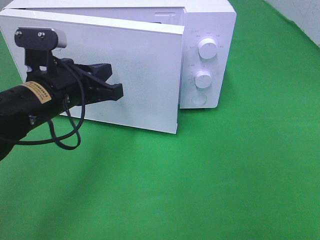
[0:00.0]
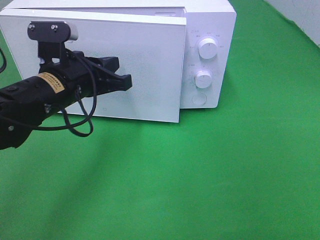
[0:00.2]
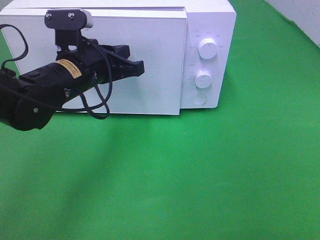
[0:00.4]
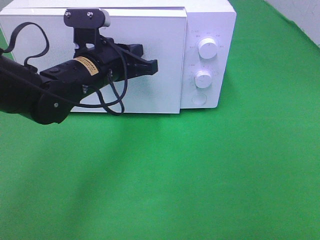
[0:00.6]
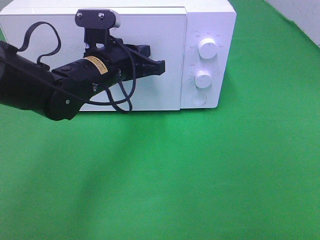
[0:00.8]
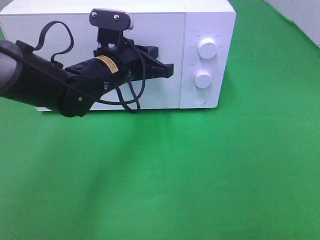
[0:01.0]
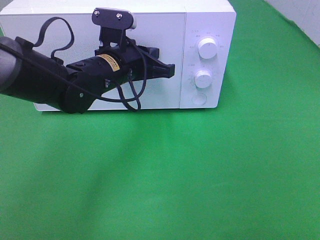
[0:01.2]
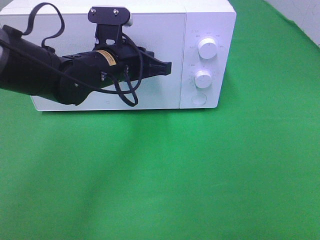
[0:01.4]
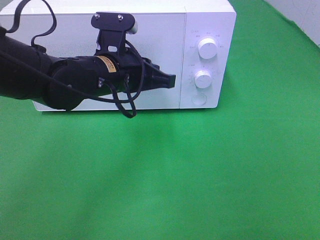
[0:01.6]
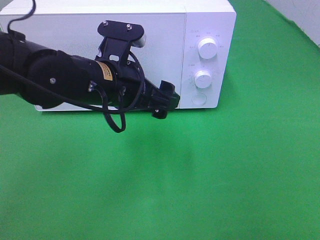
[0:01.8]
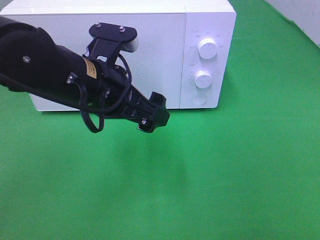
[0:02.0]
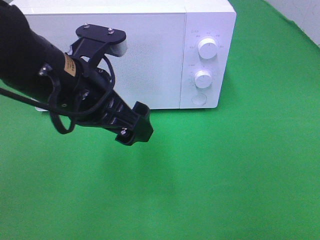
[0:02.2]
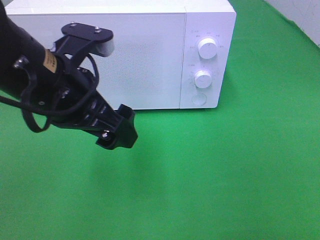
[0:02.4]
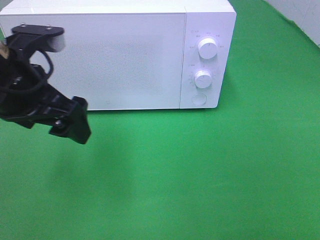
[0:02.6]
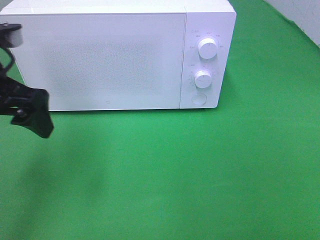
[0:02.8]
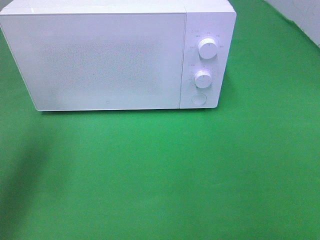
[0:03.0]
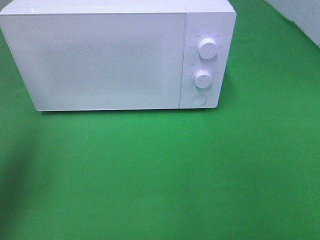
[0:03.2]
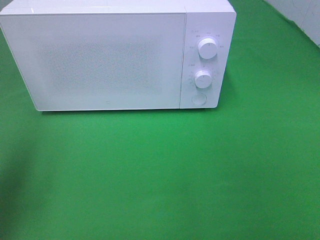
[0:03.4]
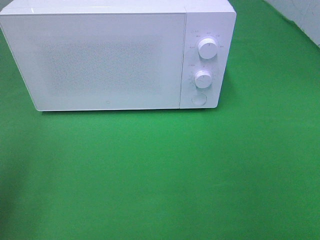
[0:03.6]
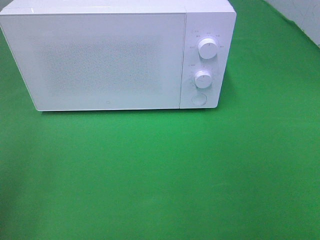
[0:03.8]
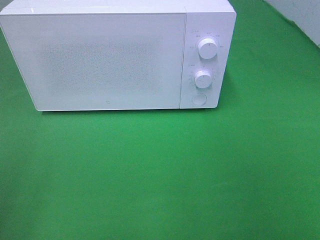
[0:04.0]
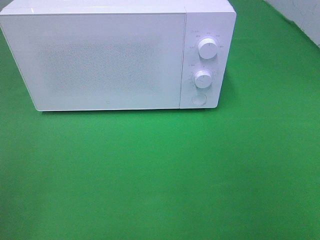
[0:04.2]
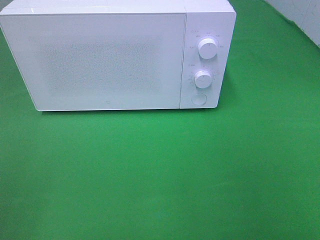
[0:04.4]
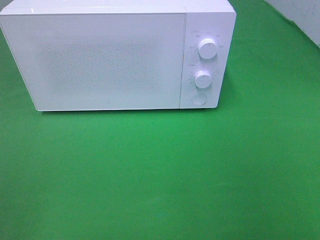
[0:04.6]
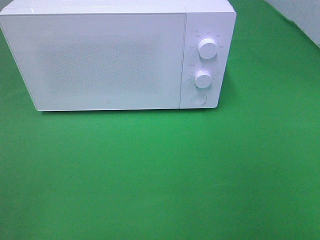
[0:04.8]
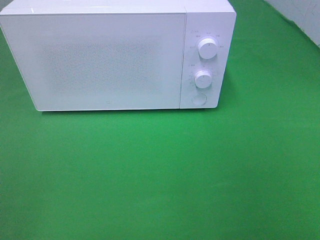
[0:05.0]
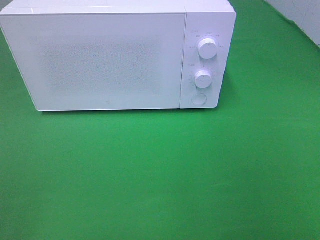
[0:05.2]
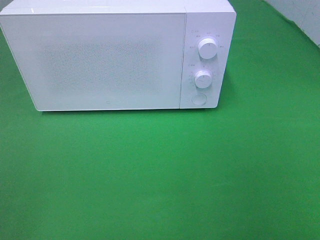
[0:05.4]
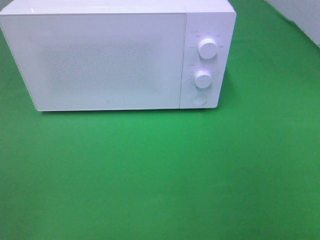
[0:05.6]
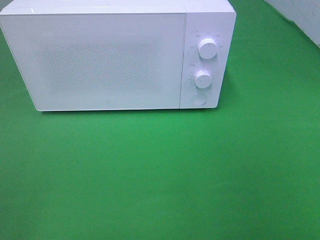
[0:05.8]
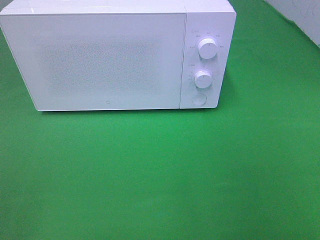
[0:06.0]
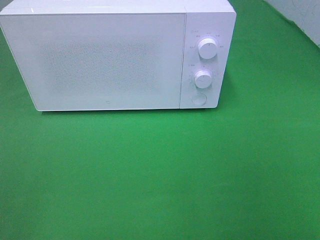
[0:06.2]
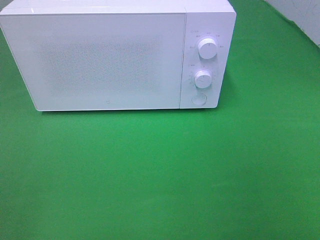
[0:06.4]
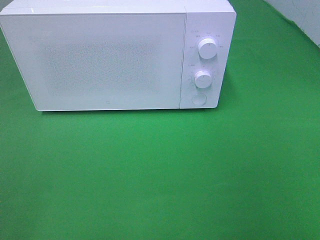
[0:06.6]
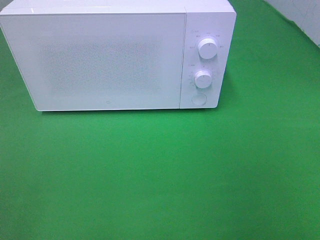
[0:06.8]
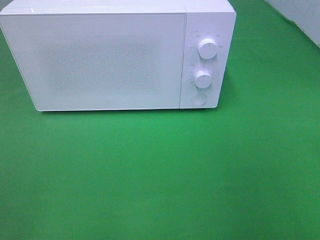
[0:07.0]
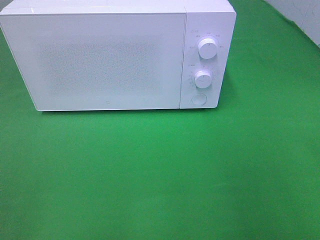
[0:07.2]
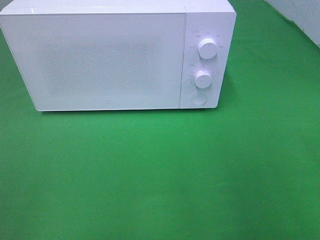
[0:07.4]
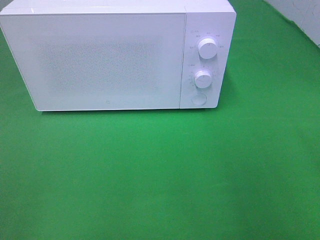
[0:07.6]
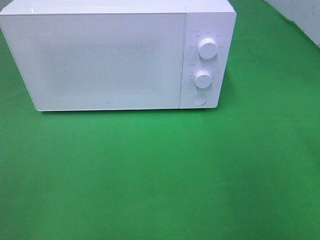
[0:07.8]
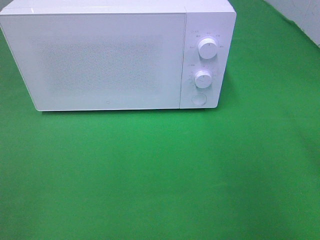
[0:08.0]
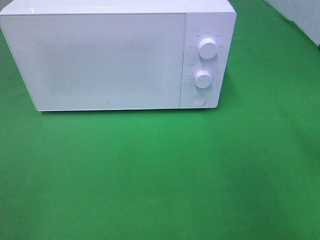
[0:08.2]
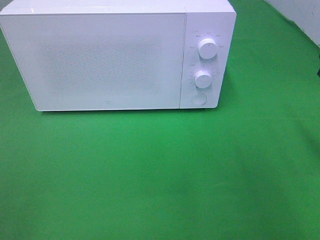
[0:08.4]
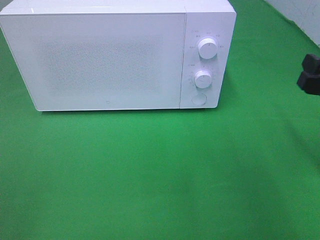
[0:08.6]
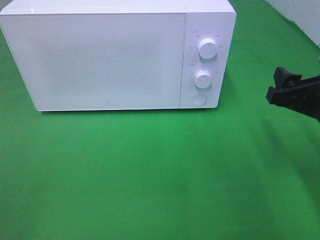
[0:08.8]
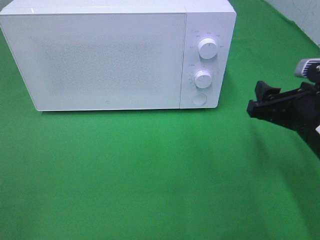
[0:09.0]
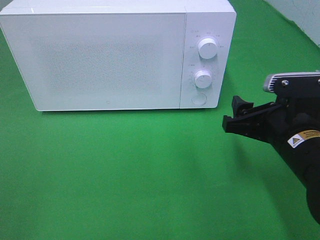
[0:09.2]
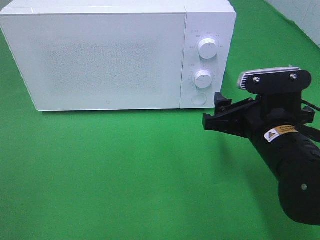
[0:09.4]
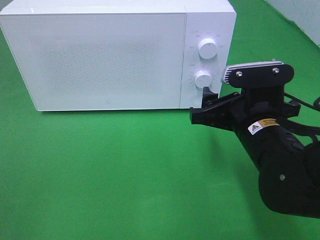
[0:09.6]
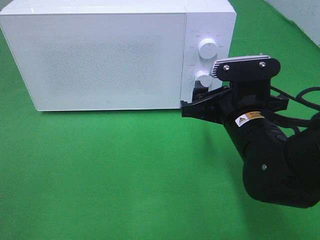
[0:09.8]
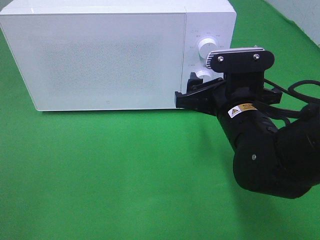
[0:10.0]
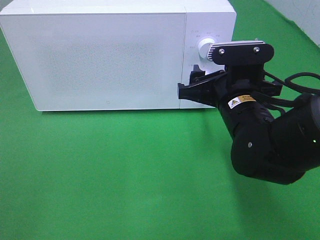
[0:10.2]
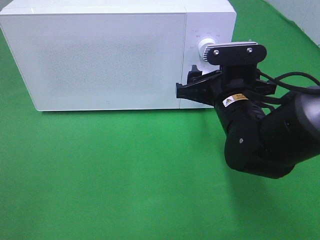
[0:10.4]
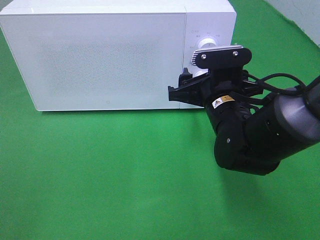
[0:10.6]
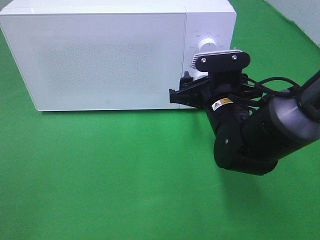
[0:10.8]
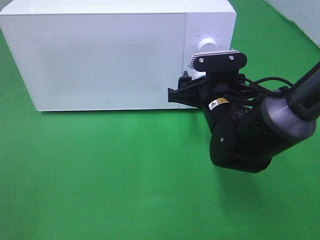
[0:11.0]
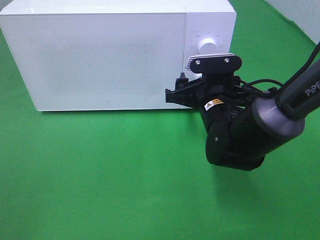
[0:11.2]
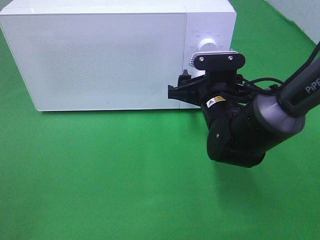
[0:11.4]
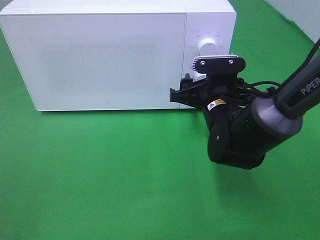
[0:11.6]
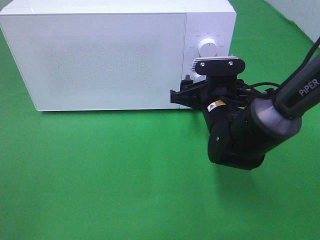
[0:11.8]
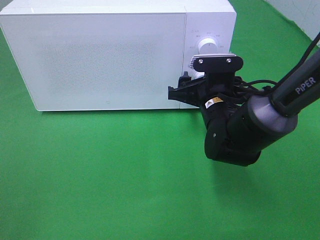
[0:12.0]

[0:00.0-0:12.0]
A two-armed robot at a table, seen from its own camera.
Task of the whole recording: Heat the burger.
0:00.0 to 0:01.6: The left gripper goes approximately 10 cm to the right.
0:01.6 to 0:03.0: The left gripper shifts approximately 25 cm to the left, and opens its fingers.
0:03.0 to 0:04.4: The left gripper moves backward, roughly 20 cm.
0:07.6 to 0:09.0: The right gripper goes roughly 15 cm forward, downward and to the left.
0:09.0 to 0:10.4: The right gripper goes approximately 10 cm to the left and forward.
0:10.4 to 0:12.0: The right gripper changes place by approximately 5 cm.

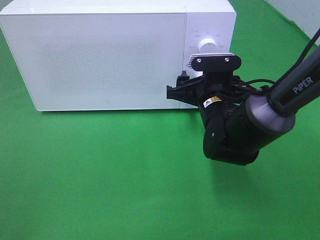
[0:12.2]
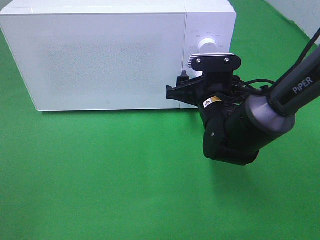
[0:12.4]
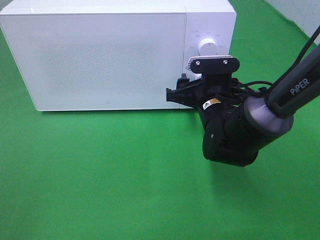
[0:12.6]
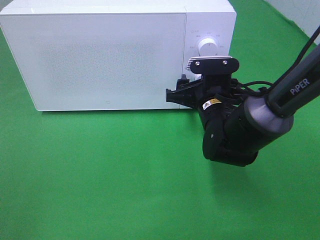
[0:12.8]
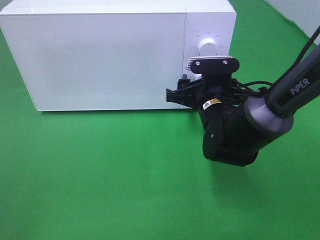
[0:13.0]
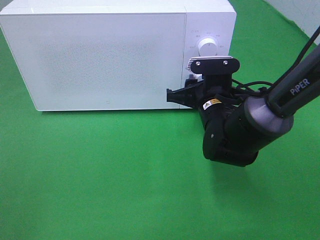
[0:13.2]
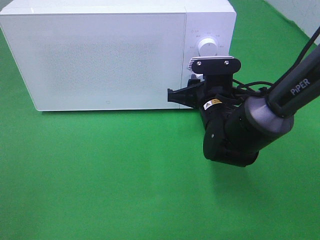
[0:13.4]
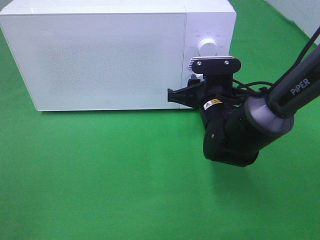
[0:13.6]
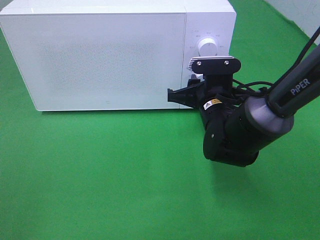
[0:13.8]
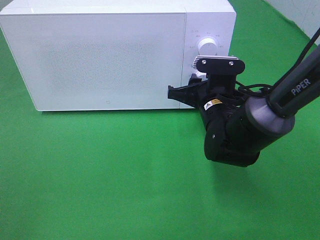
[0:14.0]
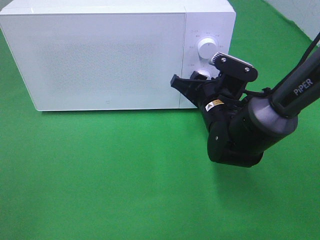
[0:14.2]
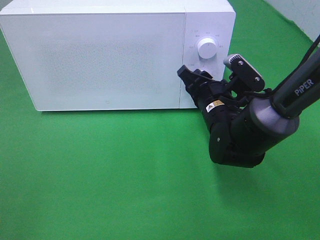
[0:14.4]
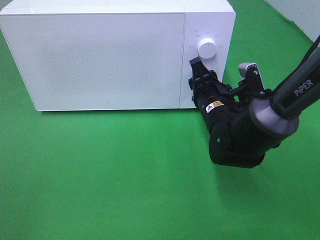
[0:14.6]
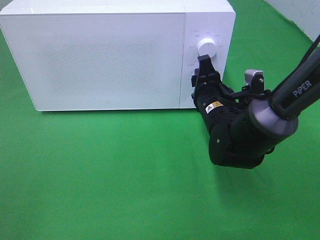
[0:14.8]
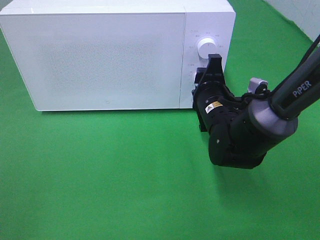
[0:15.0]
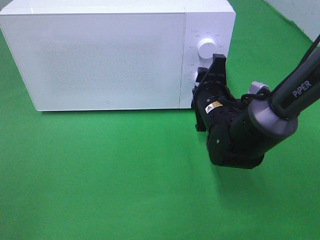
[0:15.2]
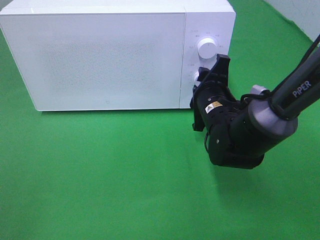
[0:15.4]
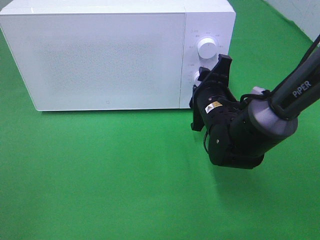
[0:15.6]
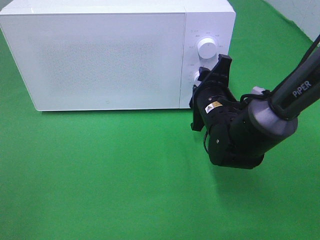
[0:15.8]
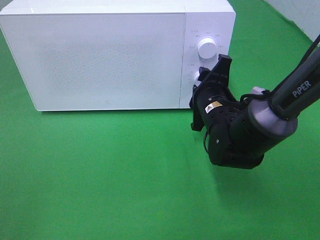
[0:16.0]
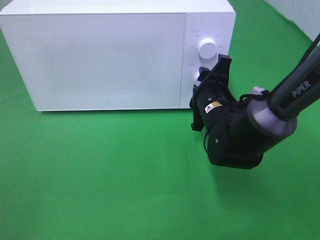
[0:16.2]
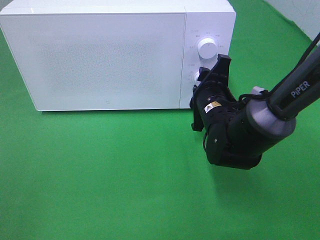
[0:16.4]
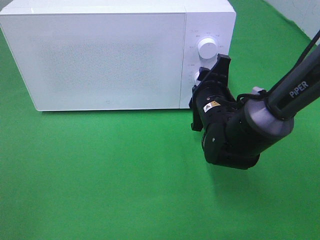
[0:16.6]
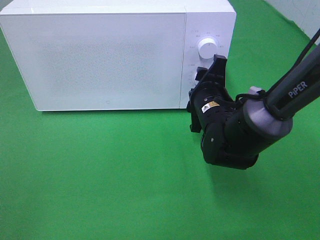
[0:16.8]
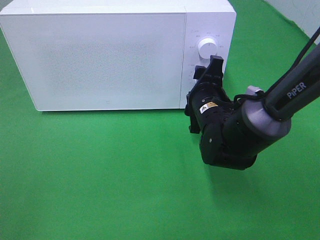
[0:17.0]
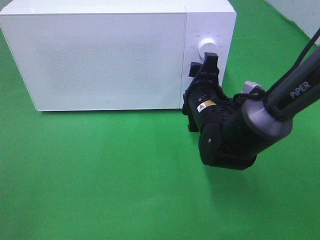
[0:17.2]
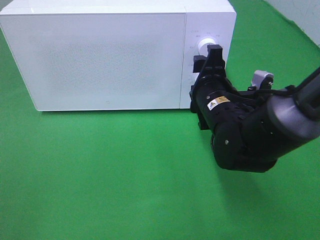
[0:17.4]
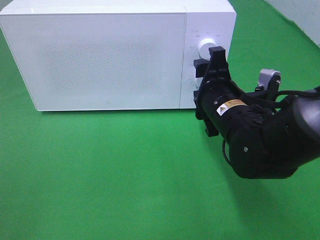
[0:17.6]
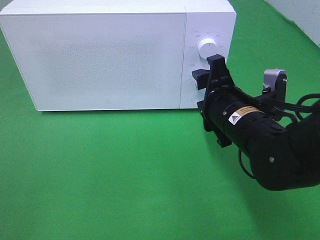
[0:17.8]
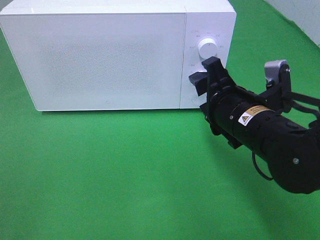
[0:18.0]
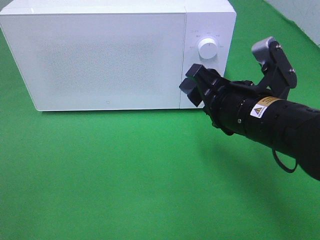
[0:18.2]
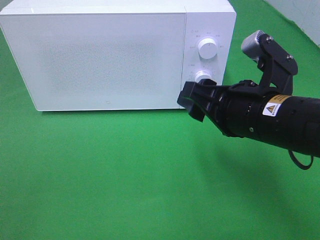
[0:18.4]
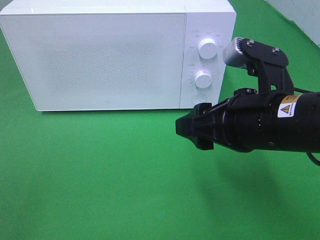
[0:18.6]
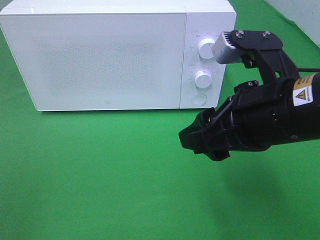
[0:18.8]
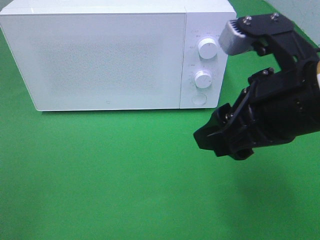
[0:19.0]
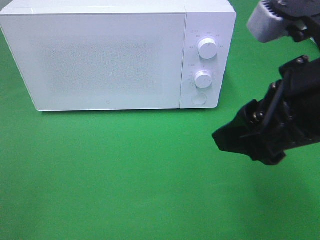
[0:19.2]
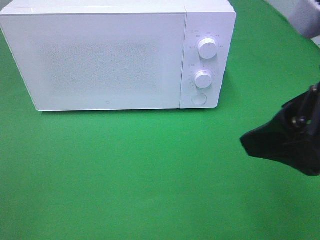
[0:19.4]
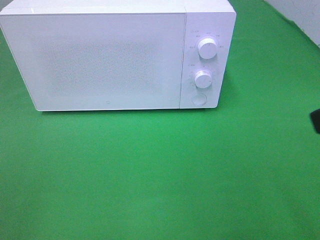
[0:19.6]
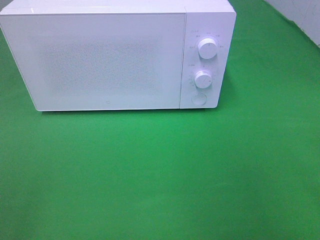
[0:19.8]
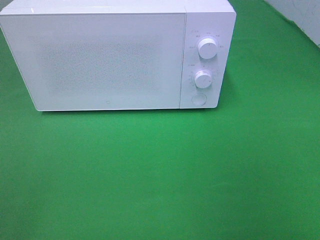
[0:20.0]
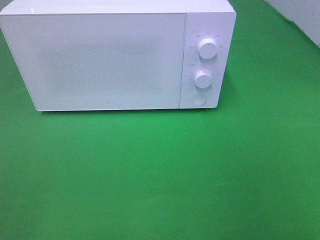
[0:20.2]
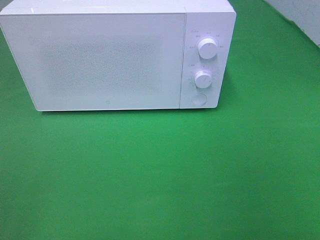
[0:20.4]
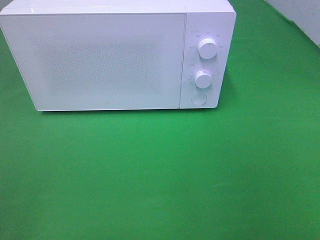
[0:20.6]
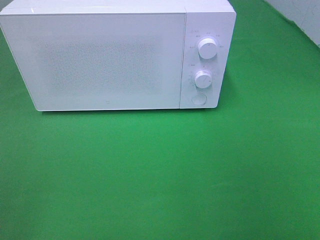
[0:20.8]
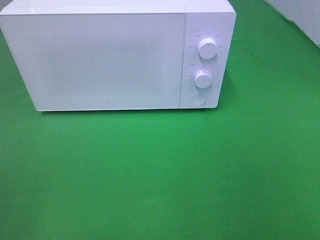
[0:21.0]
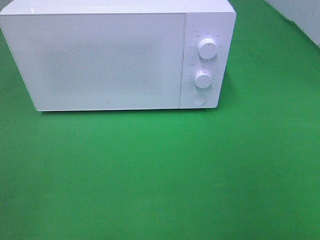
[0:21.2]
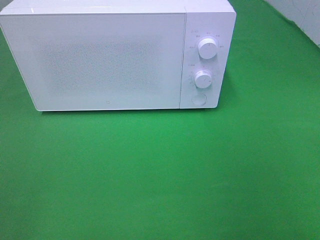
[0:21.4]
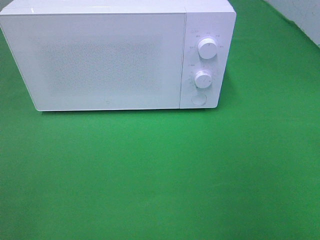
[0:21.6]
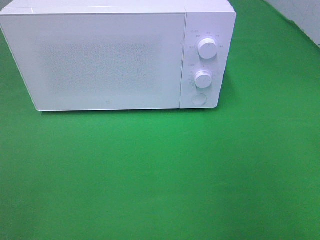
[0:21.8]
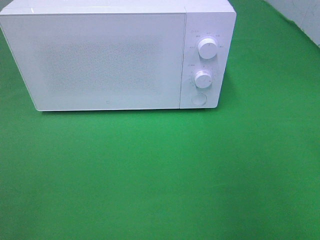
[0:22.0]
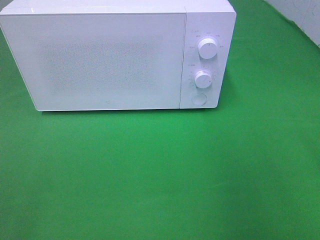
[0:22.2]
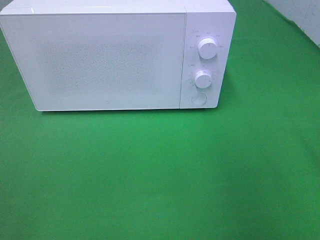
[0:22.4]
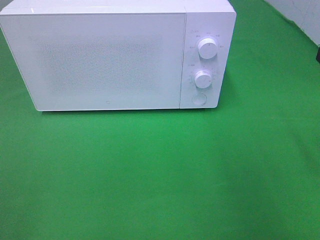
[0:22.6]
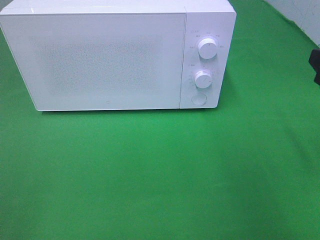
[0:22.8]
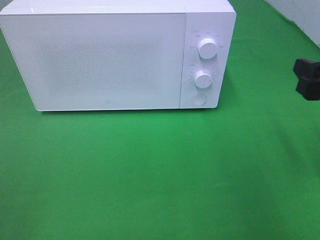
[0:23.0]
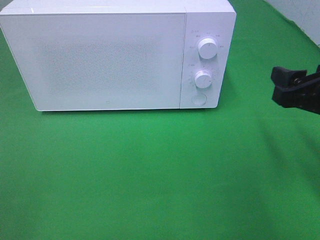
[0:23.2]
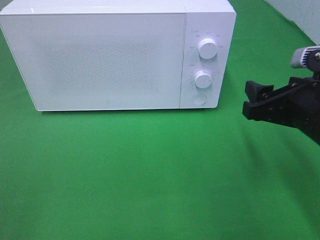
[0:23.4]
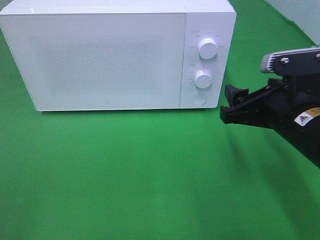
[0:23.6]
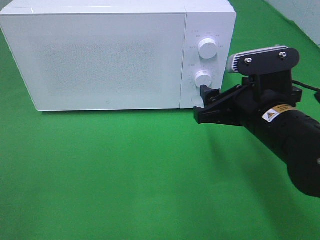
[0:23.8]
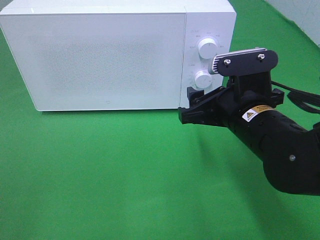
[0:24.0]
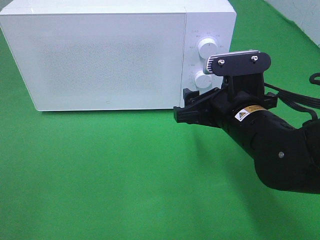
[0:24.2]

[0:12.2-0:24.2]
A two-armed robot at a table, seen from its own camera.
Task of the whole recording: Heat the burger.
Step, 0:12.2 to 0:17.8: Right hand: twist timer button.
0:12.2 to 0:13.8: The right gripper closes.
0:15.2 to 0:16.6: There are only small adjustments of the grippers.
0:16.6 to 0:18.2: The right gripper moves backward and upward, approximately 15 cm.
0:18.2 to 0:19.8: The right gripper moves upward, backward and to the right, about 25 cm.
0:22.6 to 0:24.2: The right gripper goes approximately 20 cm to the left and downward.
